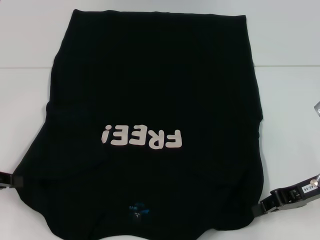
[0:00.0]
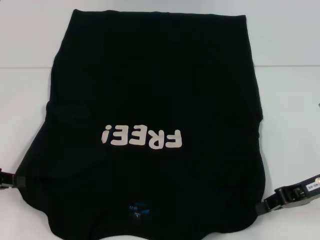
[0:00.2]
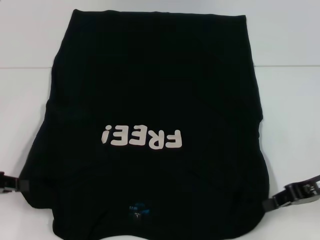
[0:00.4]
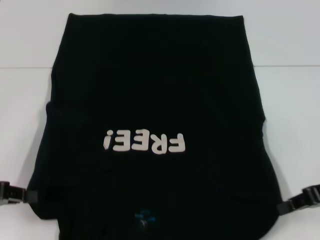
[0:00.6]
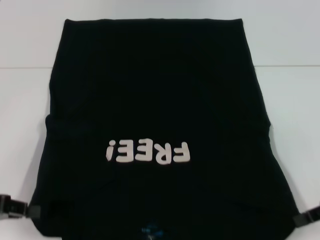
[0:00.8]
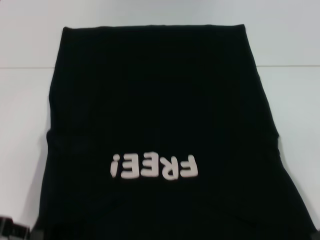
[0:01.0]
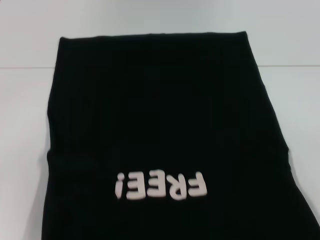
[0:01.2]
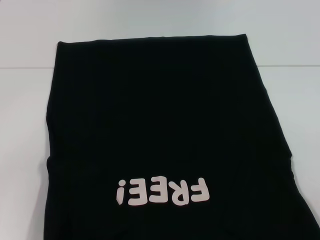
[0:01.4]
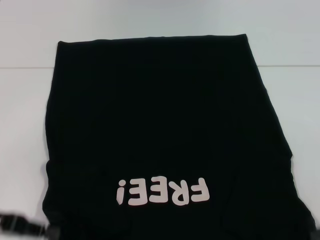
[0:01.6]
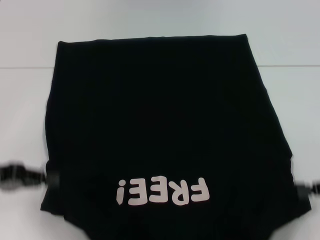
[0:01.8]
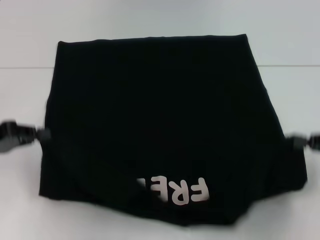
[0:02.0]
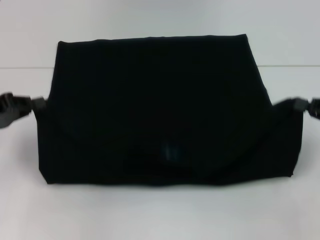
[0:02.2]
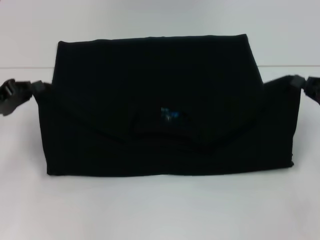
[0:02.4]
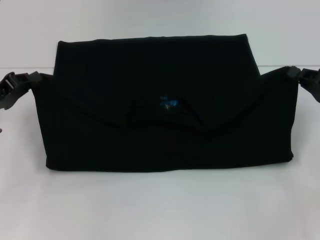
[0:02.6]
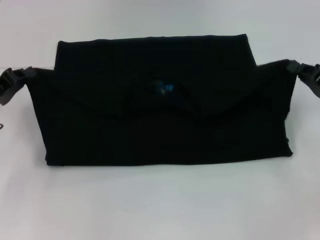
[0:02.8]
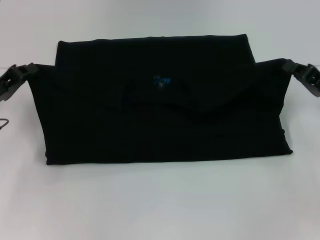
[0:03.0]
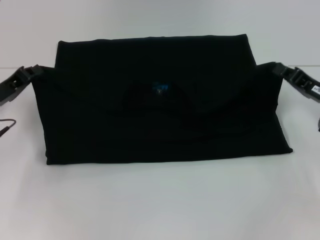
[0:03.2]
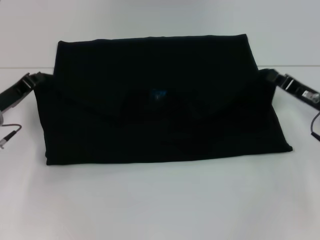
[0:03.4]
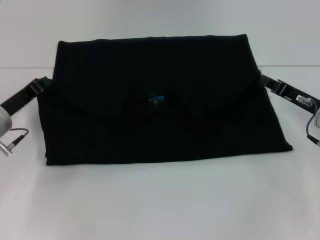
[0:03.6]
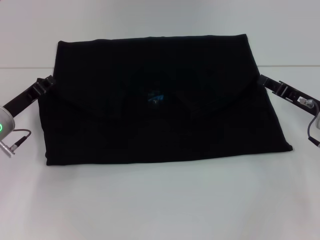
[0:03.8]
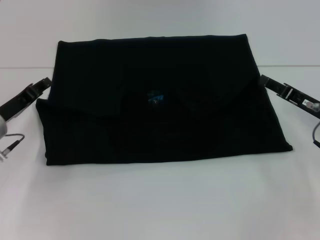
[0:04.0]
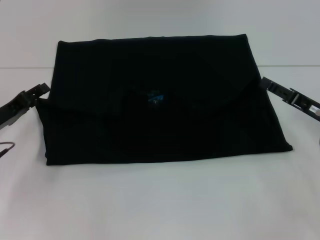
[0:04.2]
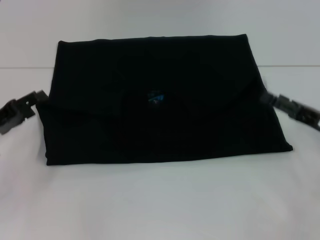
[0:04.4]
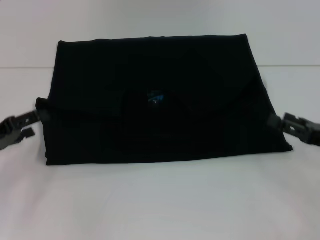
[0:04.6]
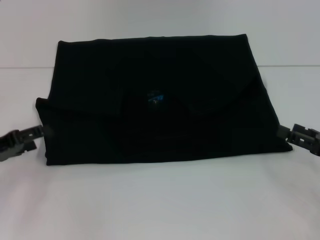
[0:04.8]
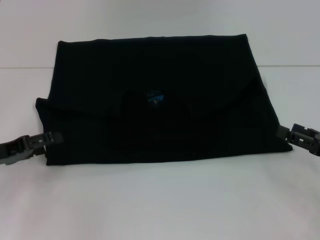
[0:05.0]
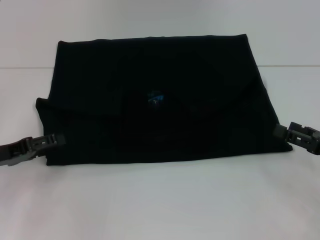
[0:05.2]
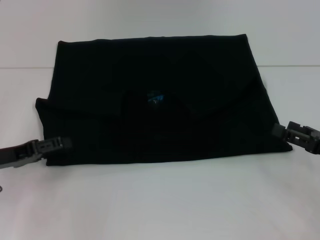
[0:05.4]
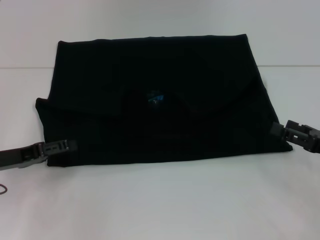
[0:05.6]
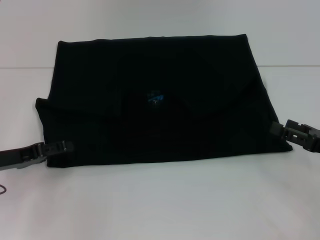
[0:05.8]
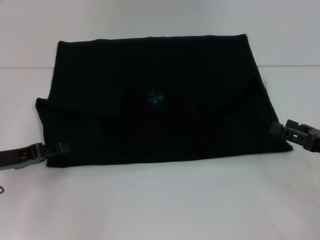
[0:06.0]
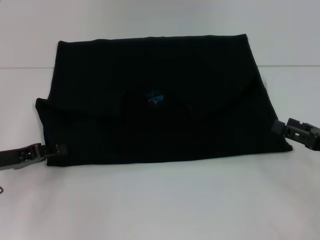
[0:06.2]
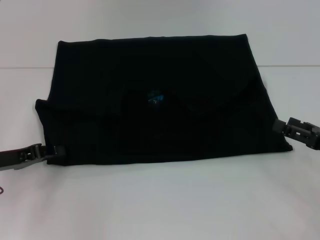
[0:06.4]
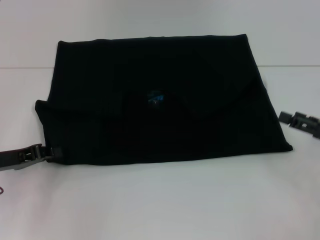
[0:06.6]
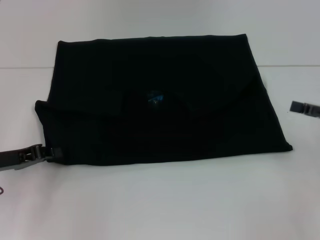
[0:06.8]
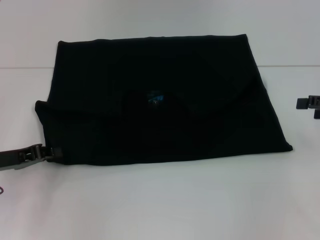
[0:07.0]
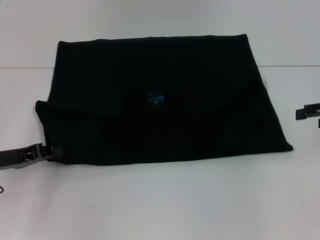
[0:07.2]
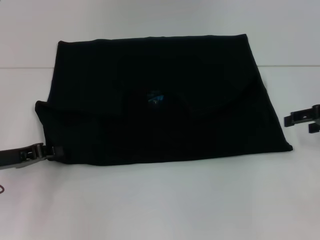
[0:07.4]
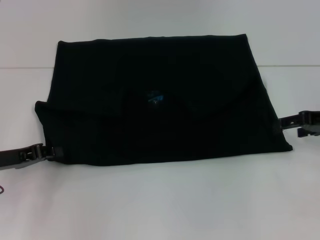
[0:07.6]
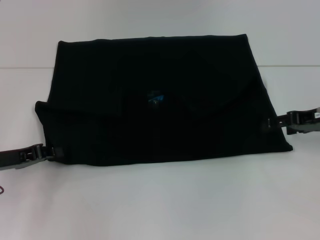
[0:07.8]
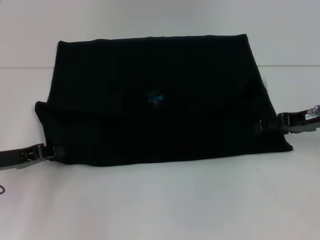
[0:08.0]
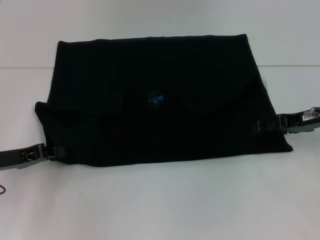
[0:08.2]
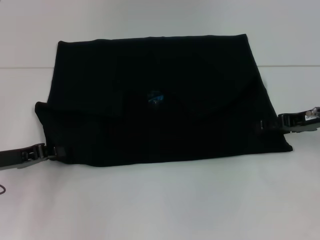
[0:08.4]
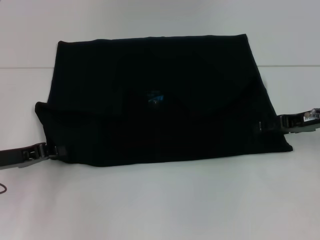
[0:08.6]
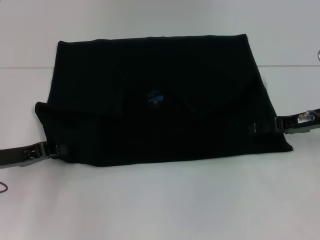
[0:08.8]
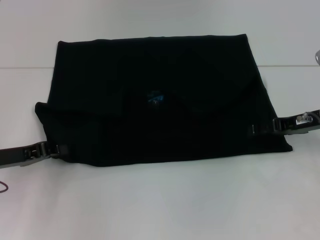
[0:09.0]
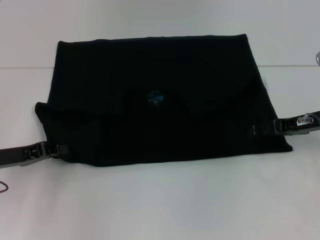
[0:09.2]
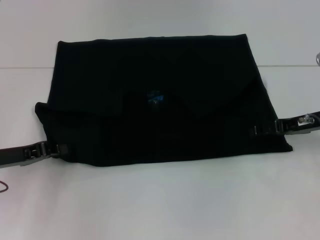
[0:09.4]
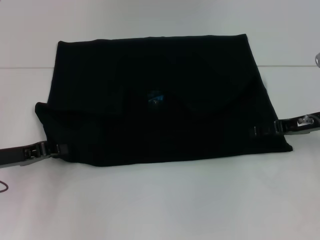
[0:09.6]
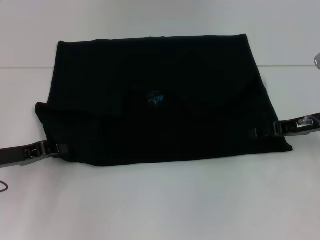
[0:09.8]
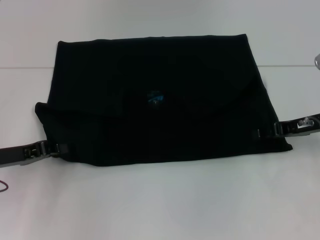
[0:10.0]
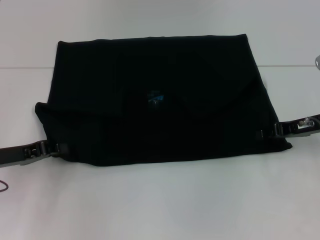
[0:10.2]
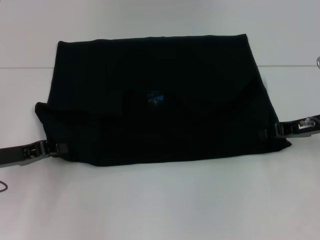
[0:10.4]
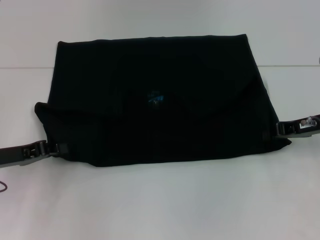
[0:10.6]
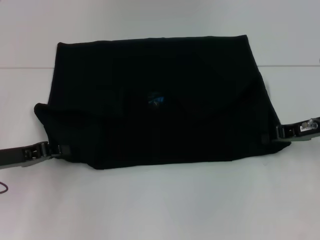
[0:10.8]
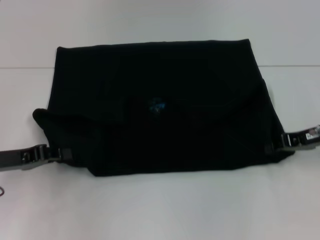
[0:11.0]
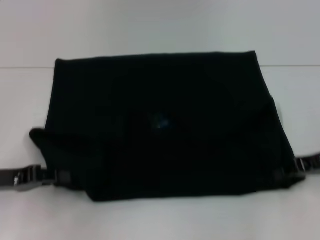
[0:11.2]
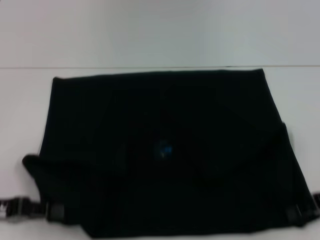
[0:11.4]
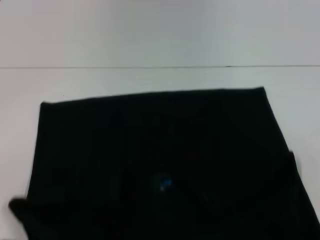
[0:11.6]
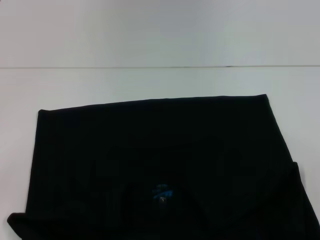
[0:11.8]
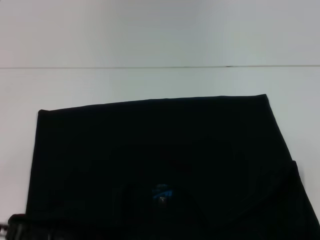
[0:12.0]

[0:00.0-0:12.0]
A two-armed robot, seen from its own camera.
Step, 0:00.0 to 0:04.2: Fold the clothes with your left hand.
Step, 0:00.0 to 0:04.2: Fold the clothes with your right hand.
Step, 0:04.4 to 0:11.8: Pull the clothes with your left hand.
Step, 0:04.4 to 0:11.8: Pull the clothes with your right hand.
0:00.0 to 0:01.6: The right gripper moves to the right and backward, some 10 cm. Meanwhile the left gripper changes place by some 5 cm.
0:01.6 to 0:03.0: The left gripper is displaced forward by roughly 10 cm, while the right gripper shifts roughly 10 cm forward and to the left.
0:03.0 to 0:04.4: The left gripper opens up; the right gripper opens.
0:06.0 to 0:07.6: The left gripper closes up. Meanwhile the right gripper goes some 10 cm forward and upward.
0:07.6 to 0:09.0: The right gripper shifts by about 5 cm.
0:09.0 to 0:10.4: The right gripper closes.
0:10.4 to 0:12.0: The right gripper goes some 10 cm backward, and closes up; the left gripper heads backward, covering approximately 10 cm.

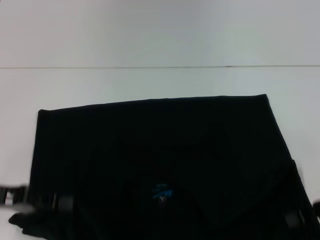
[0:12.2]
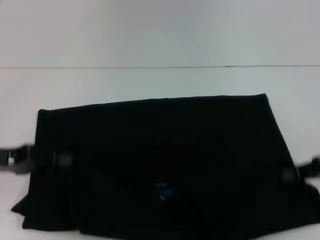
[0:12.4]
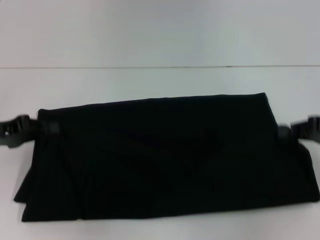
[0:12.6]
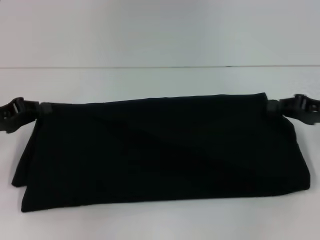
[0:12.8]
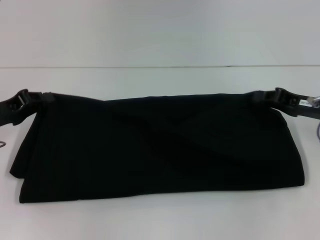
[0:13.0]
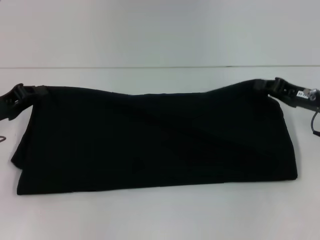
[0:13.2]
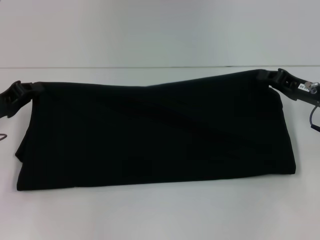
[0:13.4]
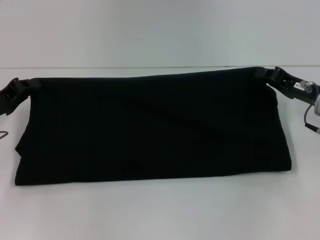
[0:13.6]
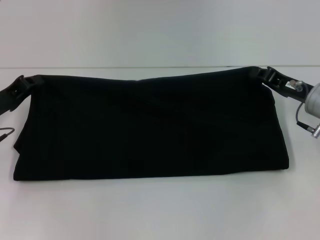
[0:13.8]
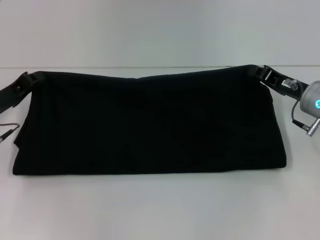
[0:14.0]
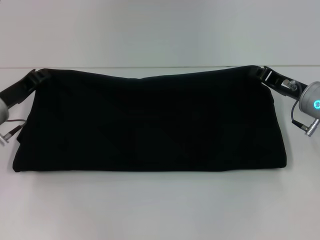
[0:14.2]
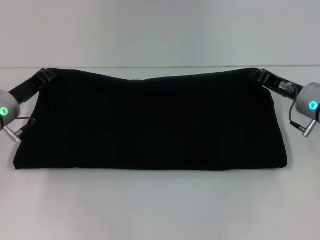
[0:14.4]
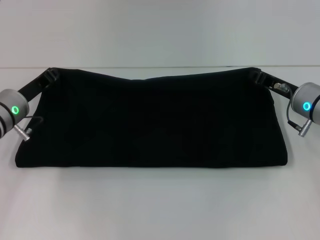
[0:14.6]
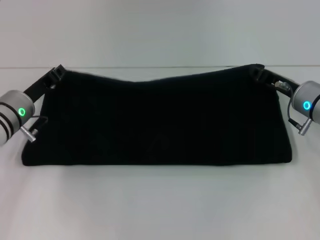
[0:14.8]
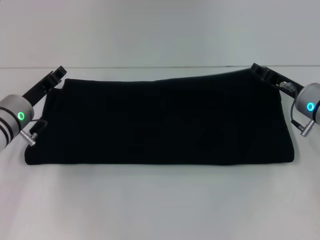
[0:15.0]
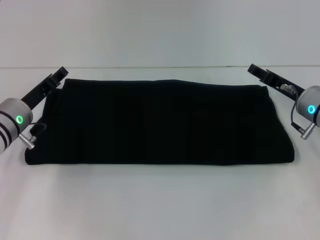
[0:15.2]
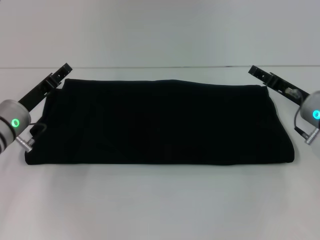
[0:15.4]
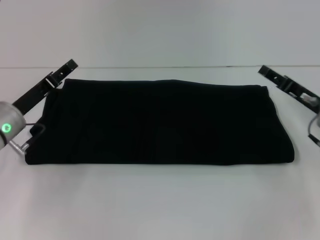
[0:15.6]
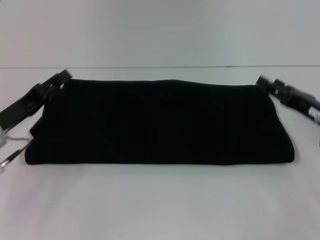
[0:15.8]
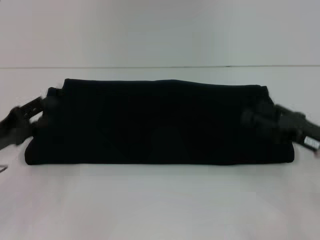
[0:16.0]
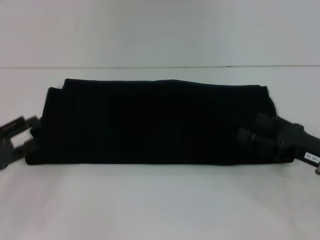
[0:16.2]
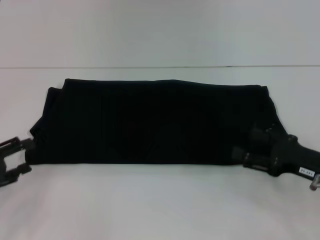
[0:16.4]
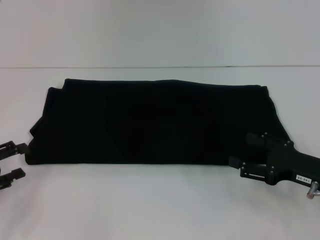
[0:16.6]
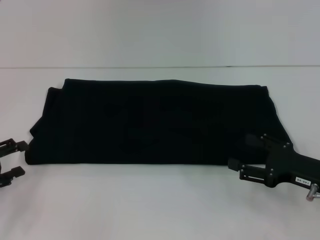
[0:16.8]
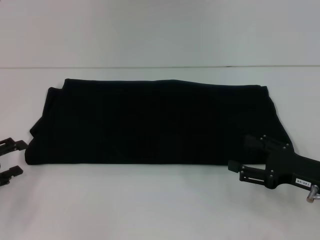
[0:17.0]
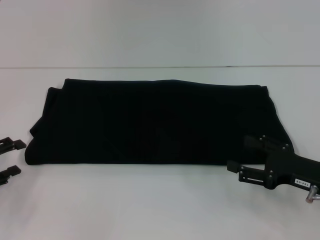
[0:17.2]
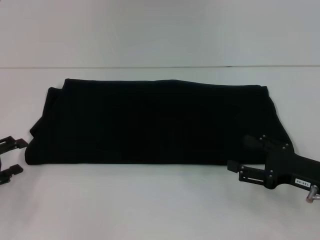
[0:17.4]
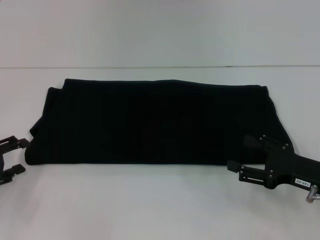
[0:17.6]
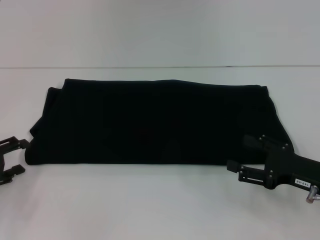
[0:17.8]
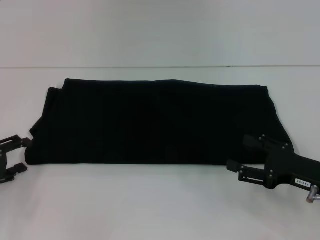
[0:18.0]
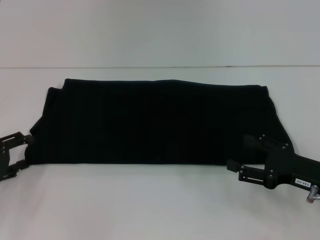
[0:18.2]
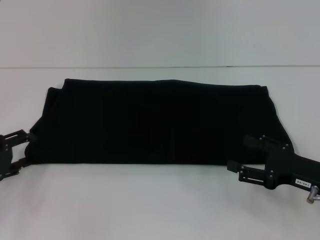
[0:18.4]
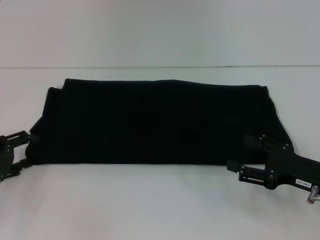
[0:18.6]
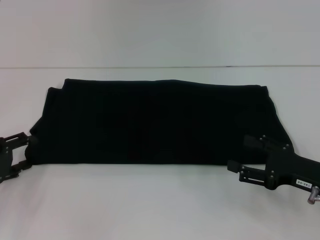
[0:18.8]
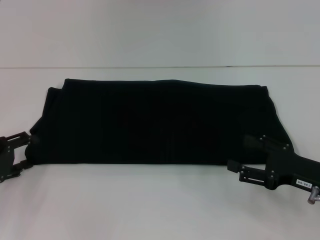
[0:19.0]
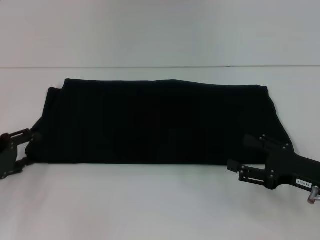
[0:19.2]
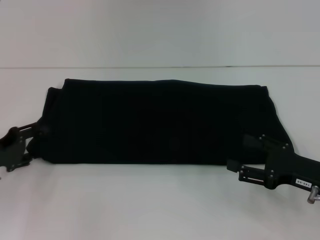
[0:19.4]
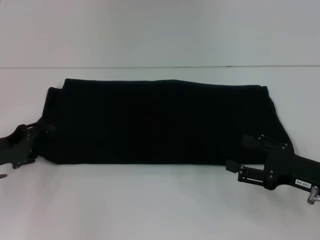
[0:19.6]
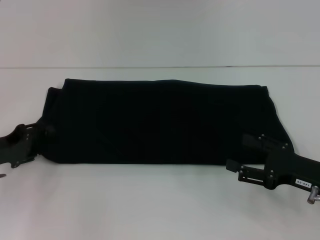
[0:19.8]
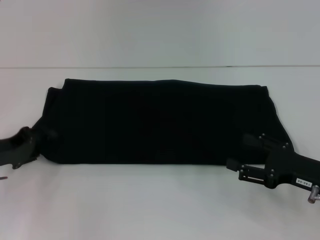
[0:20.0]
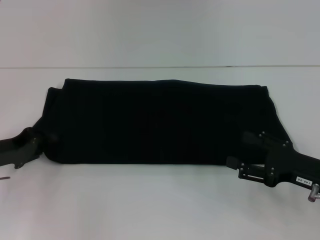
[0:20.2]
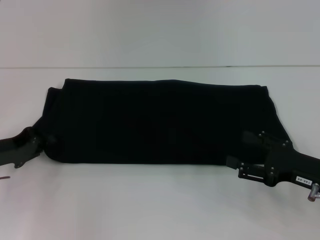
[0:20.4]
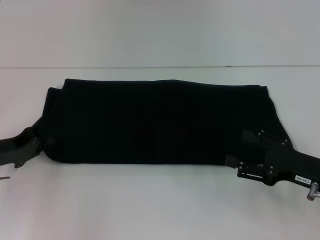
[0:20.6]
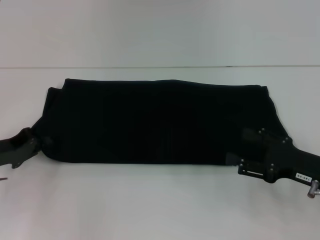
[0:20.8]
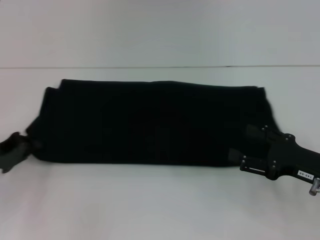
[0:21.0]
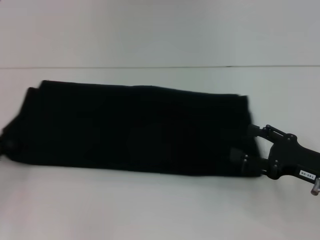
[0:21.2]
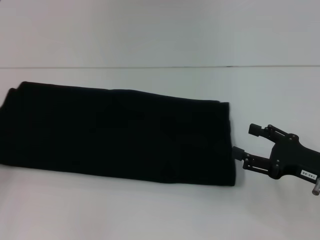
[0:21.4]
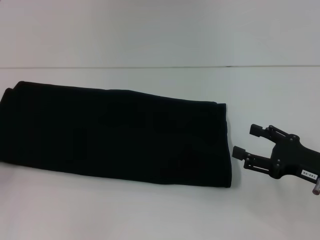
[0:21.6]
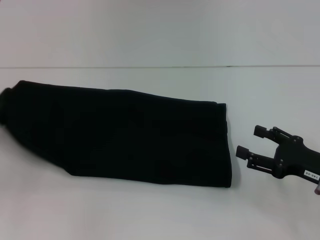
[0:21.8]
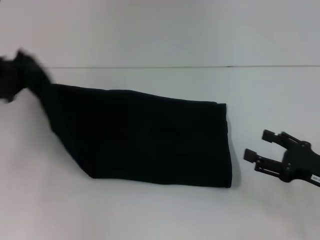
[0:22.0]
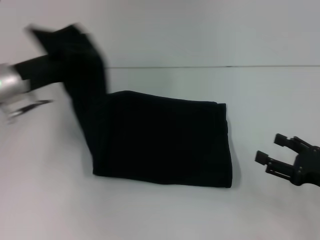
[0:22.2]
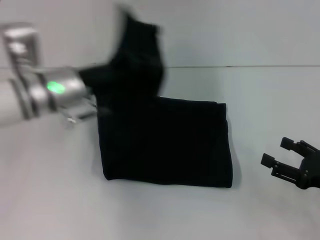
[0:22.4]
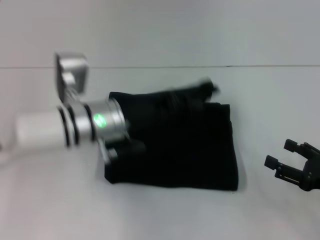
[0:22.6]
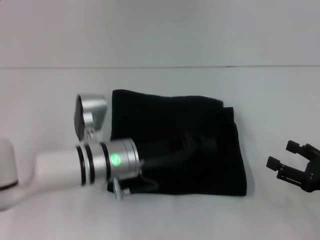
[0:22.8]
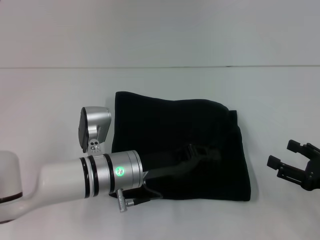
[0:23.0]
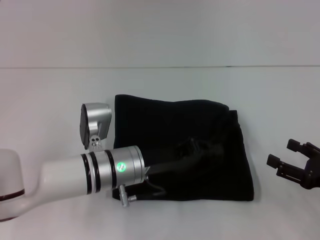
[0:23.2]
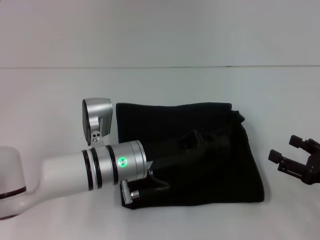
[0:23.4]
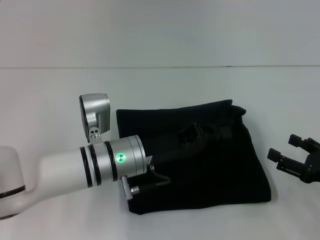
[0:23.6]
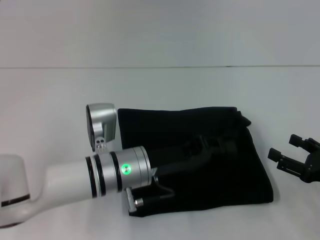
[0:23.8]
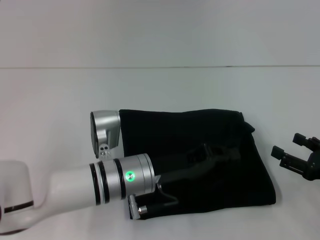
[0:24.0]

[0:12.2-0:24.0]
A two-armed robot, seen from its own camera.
Step, 0:12.2 to 0:15.4: Fold the clothes with your right hand.
Step, 0:12.2 to 0:23.2: Fold the clothes with your left hand.
0:12.2 to 0:13.6: The left gripper goes some 10 cm forward; the right gripper heads forward and to the left, covering about 10 cm.
0:13.6 to 0:15.2: The left gripper moves to the right, approximately 5 cm, and opens its fingers.
0:15.2 to 0:16.6: The left gripper goes some 20 cm backward and to the left. Meanwhile the right gripper goes some 10 cm backward, and opens its fingers.
0:16.6 to 0:18.2: There are only small adjustments of the grippers.
0:18.2 to 0:19.6: The grippers move only a little.
0:19.6 to 0:21.0: The left gripper closes.
0:21.0 to 0:22.6: The left gripper goes roughly 20 cm to the right; the right gripper shifts by some 5 cm.
0:22.6 to 0:24.0: The left gripper heads backward, covering roughly 5 cm.
